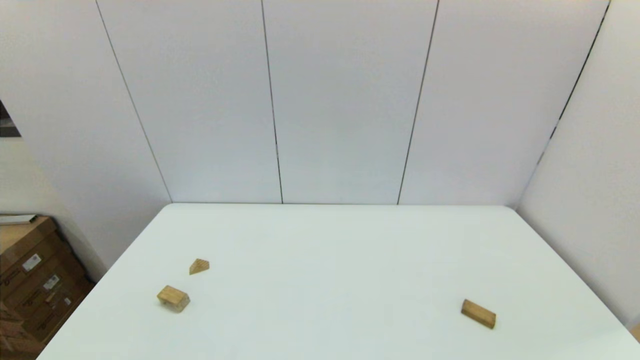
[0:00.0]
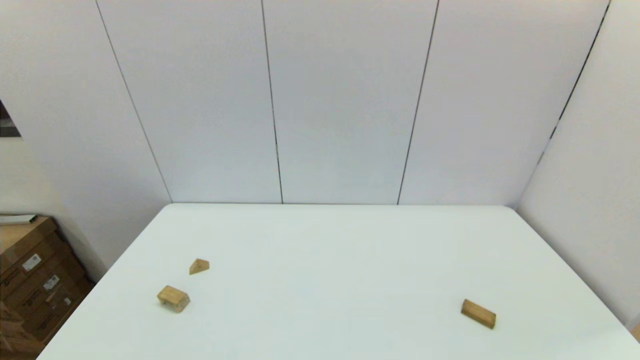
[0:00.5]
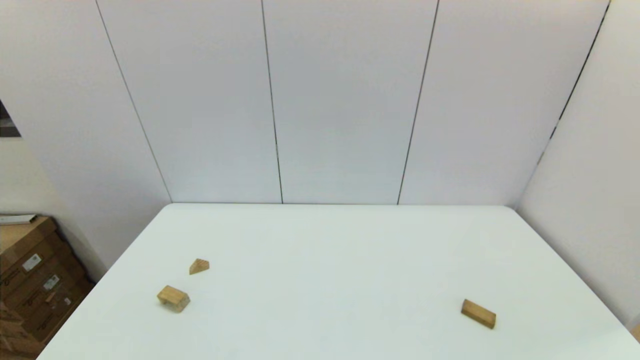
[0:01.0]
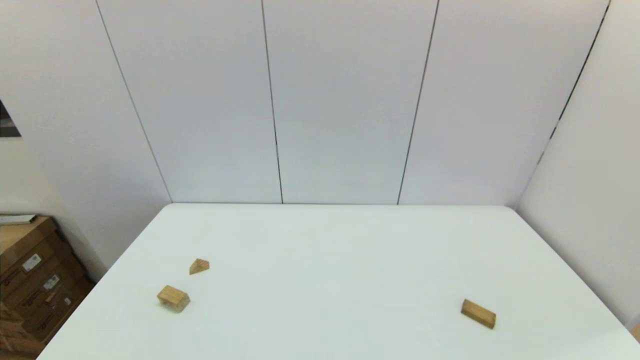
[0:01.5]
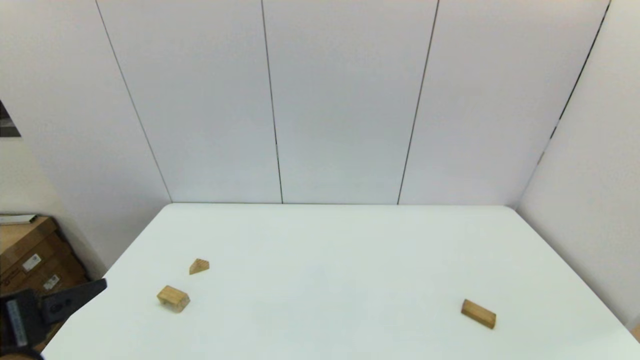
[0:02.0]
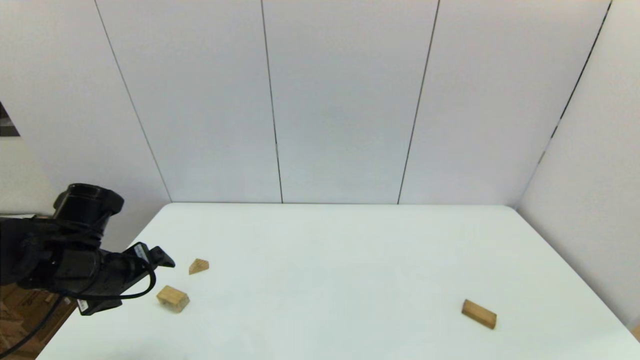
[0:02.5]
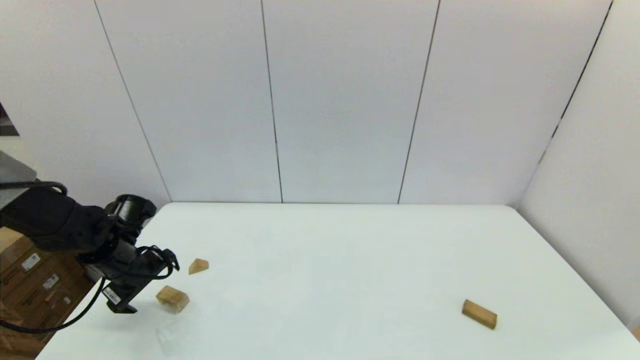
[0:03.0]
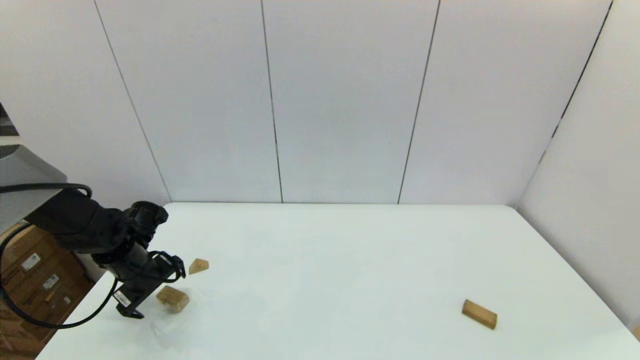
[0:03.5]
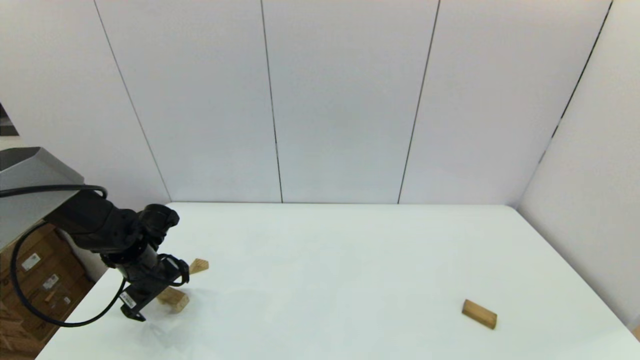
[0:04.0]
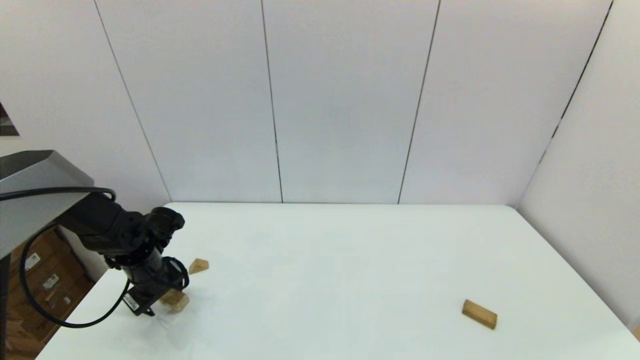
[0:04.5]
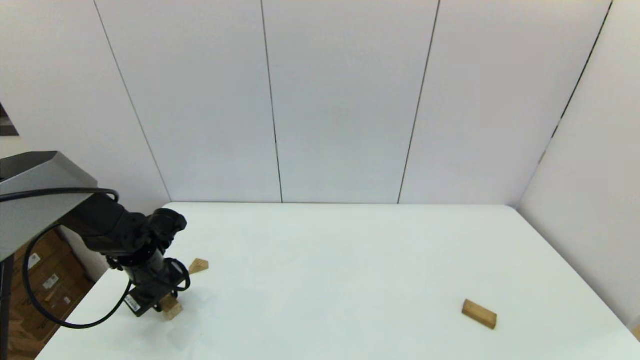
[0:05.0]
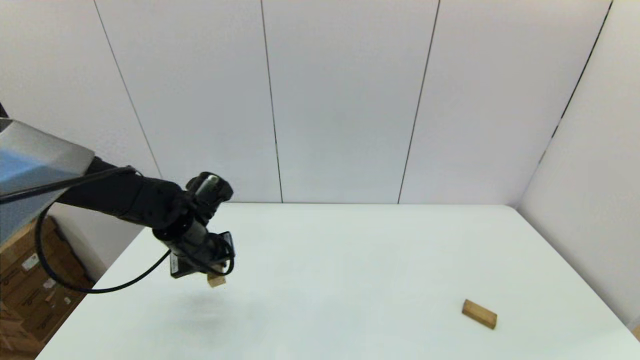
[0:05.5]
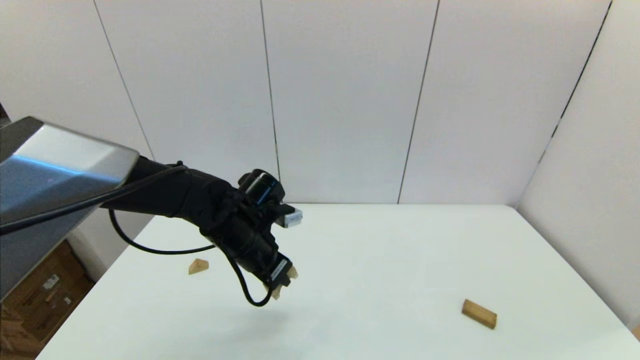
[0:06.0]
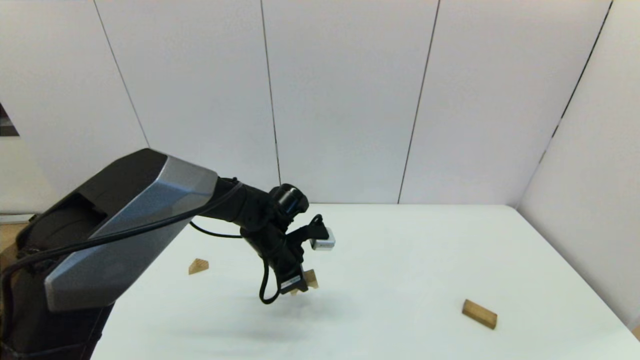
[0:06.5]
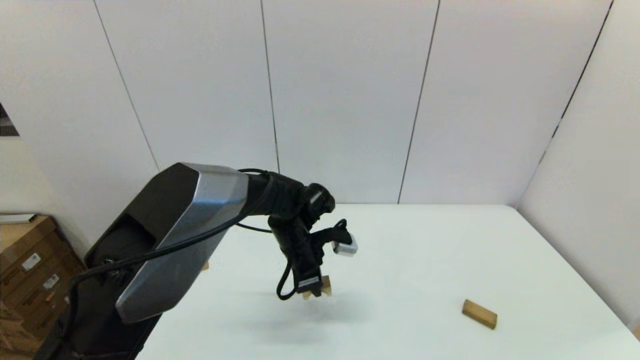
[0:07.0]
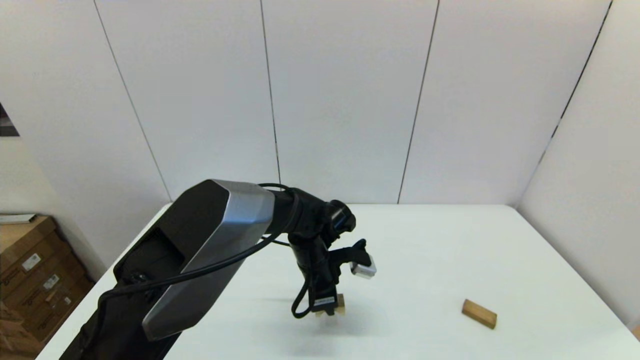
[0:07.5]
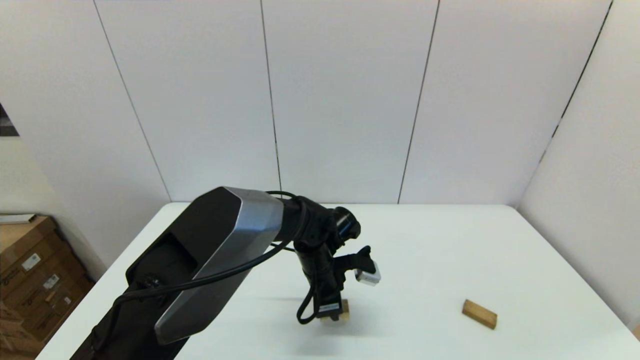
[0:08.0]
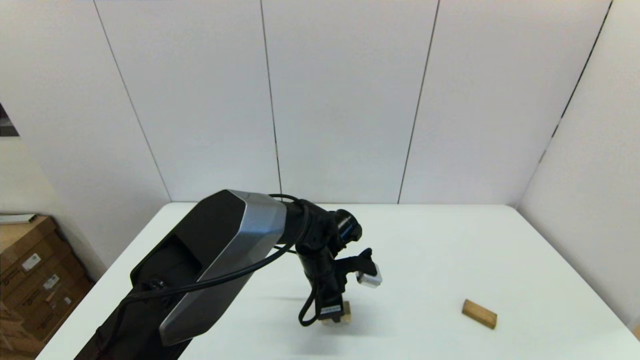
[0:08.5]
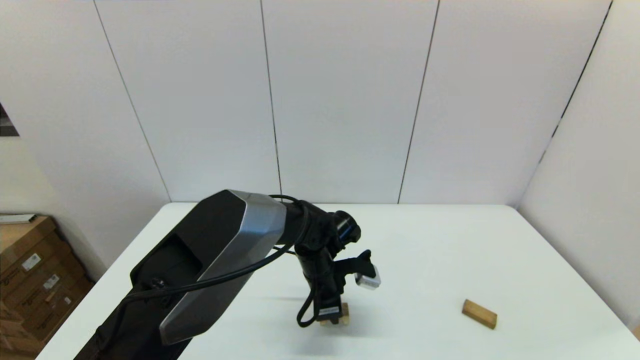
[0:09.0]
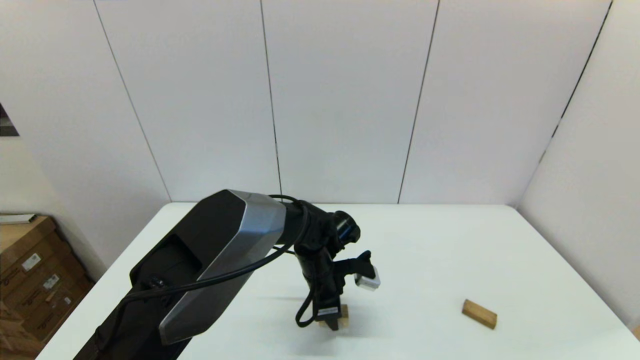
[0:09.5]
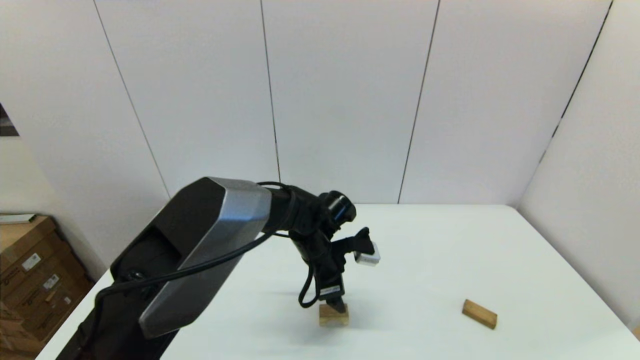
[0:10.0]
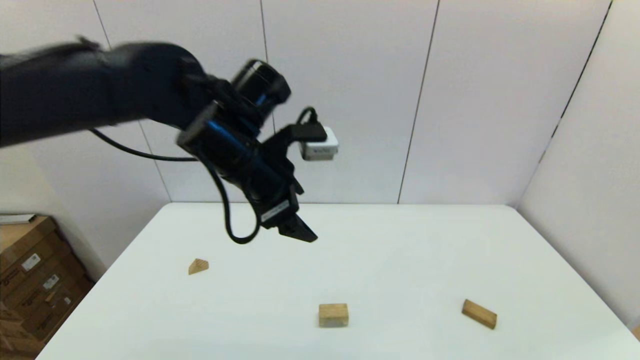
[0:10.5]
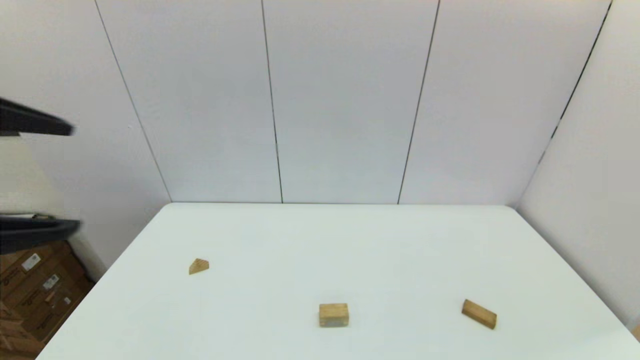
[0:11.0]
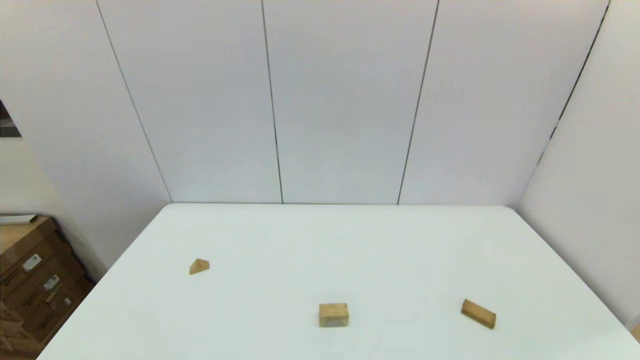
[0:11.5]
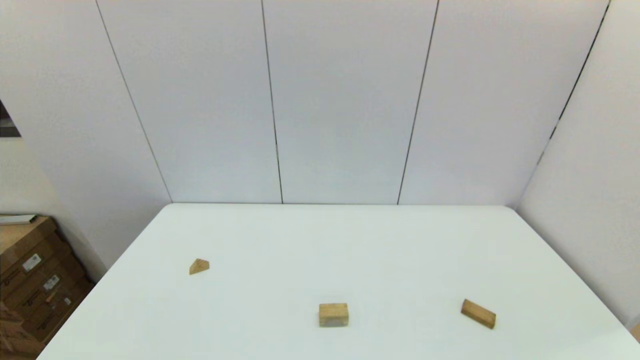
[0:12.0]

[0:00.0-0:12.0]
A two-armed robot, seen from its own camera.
Task of the whole recording: place the arched building blocks in the center of the table, set up the rectangular building blocks, and then set up the triangular building blocks.
Step, 0:02.0 to 0:04.5: Grasp the arch-shaped block with the left gripper.
Step, 0:05.0 to 0:09.5: Place the arch-shaped block in the center of view with the left gripper.
0:00.0 to 0:02.0: The left gripper heads forward and upward, covering roughly 15 cm.
0:02.0 to 0:04.0: The left gripper is displaced forward and downward by about 30 cm.
0:04.0 to 0:06.0: The left gripper travels to the right and upward by approximately 20 cm, and closes up.
0:06.0 to 0:08.0: The left gripper is displaced to the right and downward by some 15 cm.
0:08.0 to 0:10.0: The left gripper opens its fingers.
0:10.0 to 0:12.0: The left gripper goes roughly 50 cm backward and to the left.

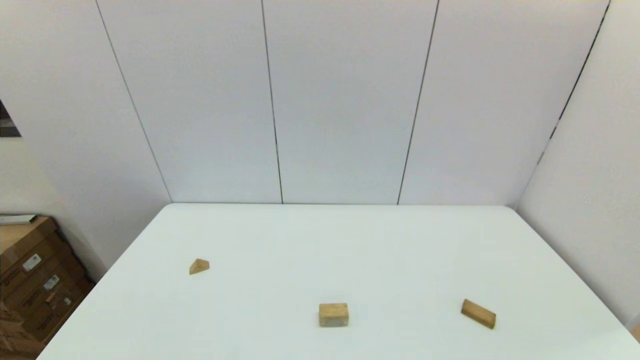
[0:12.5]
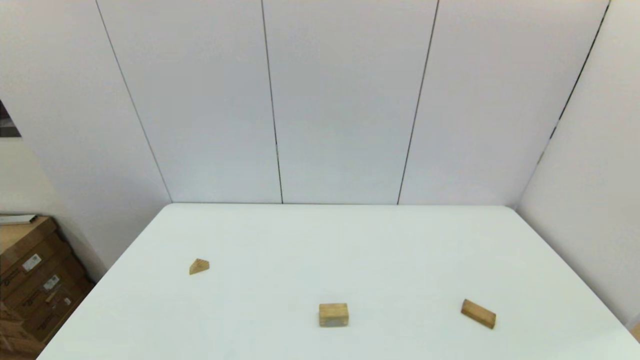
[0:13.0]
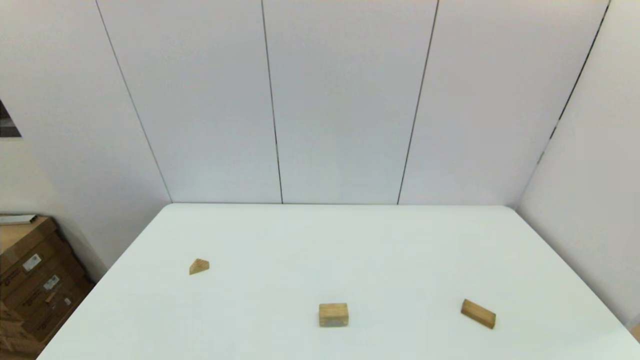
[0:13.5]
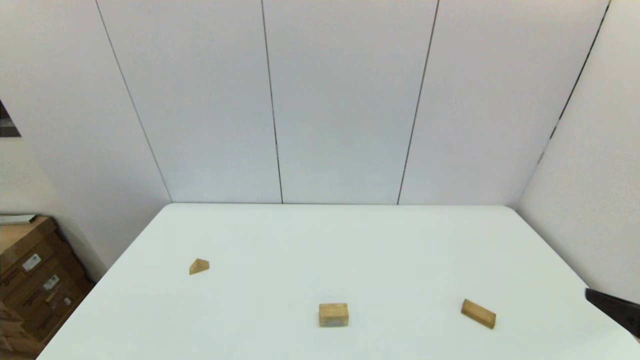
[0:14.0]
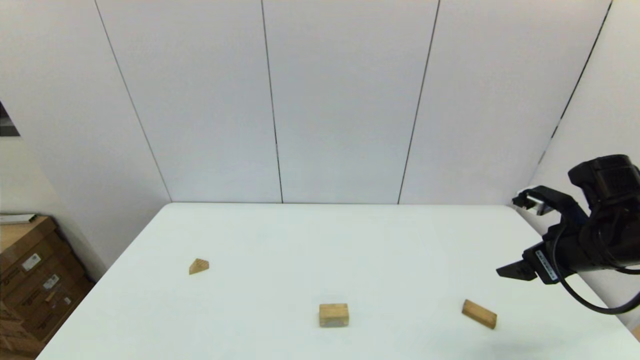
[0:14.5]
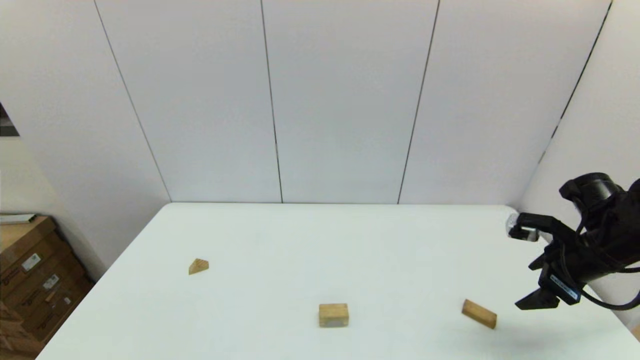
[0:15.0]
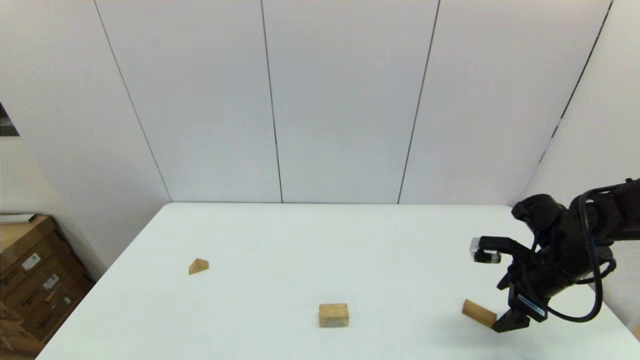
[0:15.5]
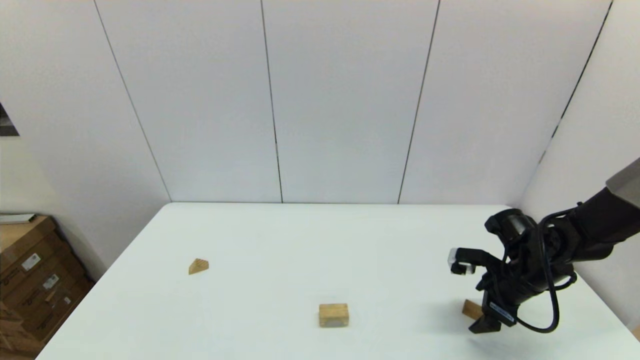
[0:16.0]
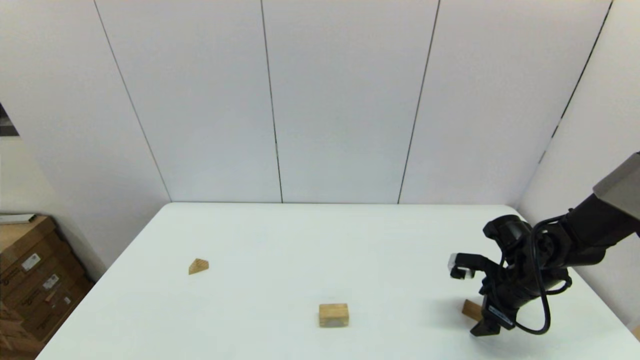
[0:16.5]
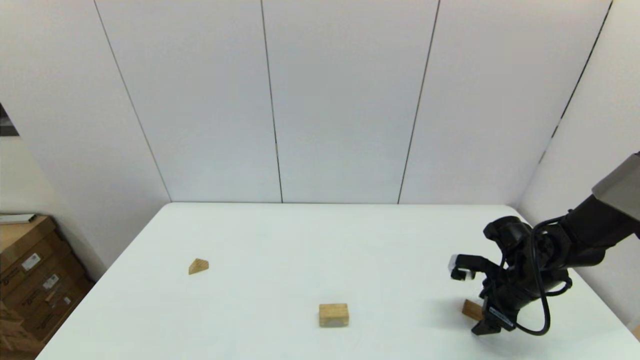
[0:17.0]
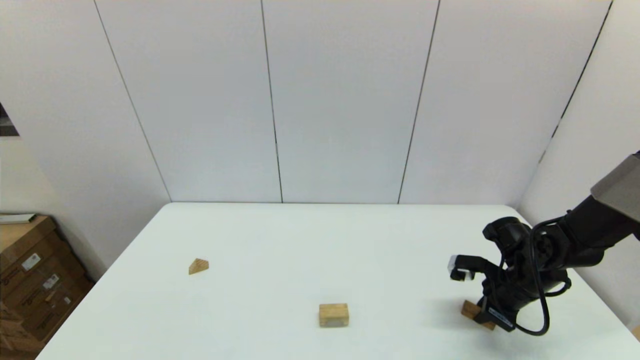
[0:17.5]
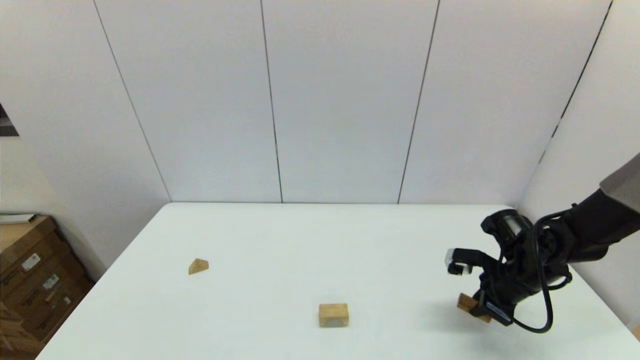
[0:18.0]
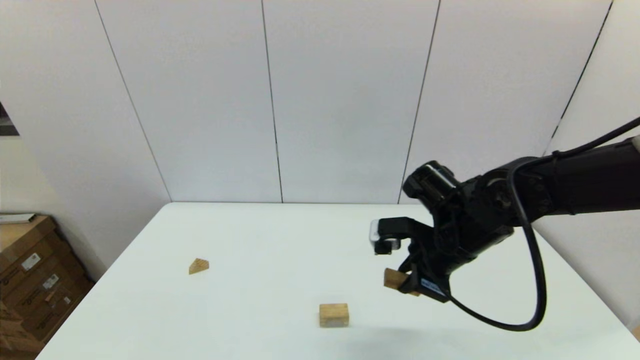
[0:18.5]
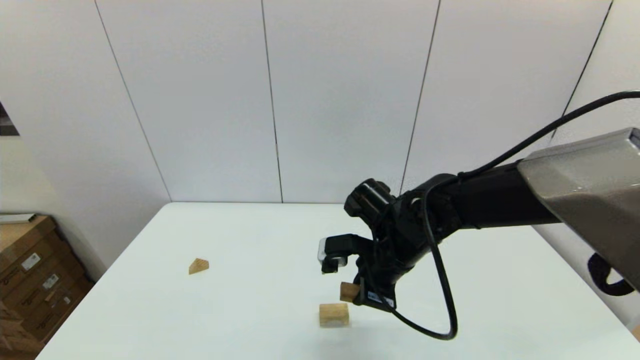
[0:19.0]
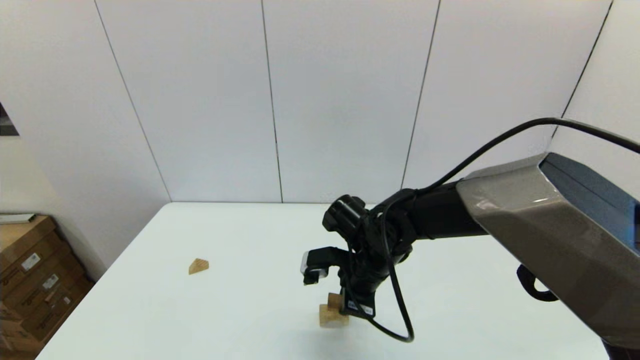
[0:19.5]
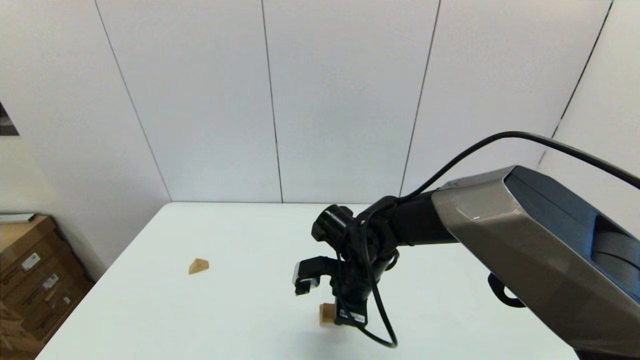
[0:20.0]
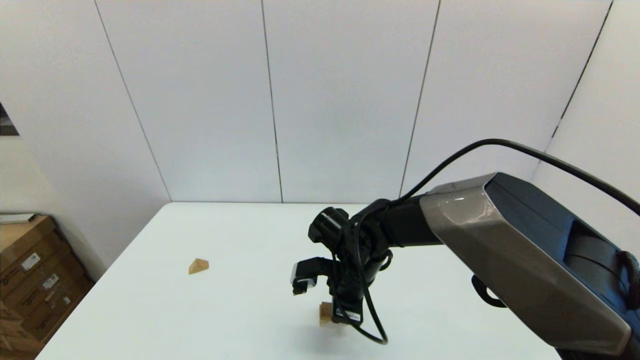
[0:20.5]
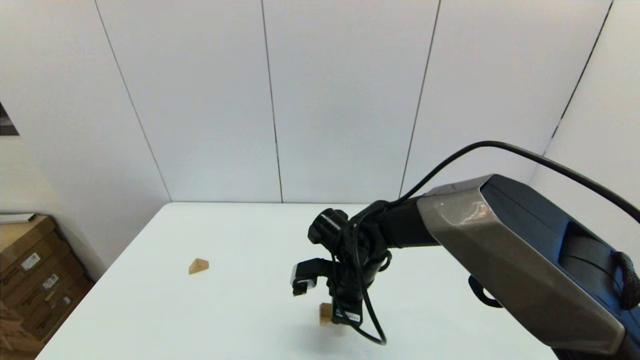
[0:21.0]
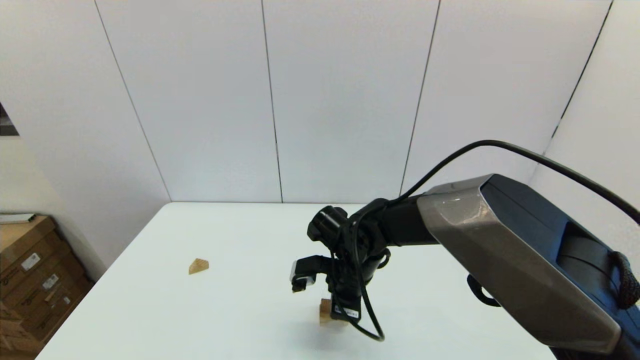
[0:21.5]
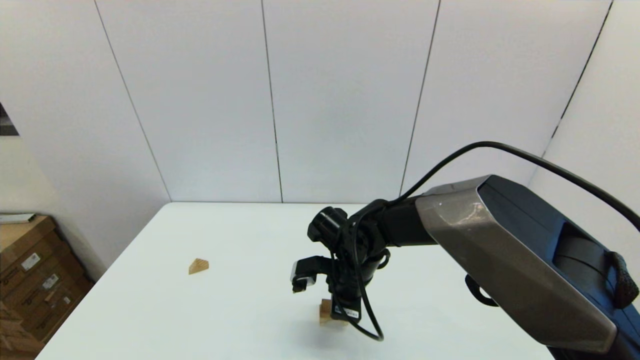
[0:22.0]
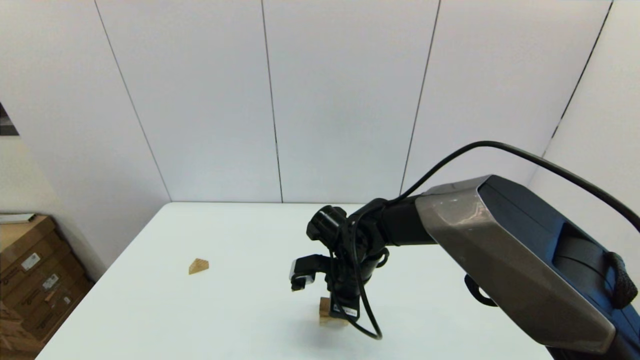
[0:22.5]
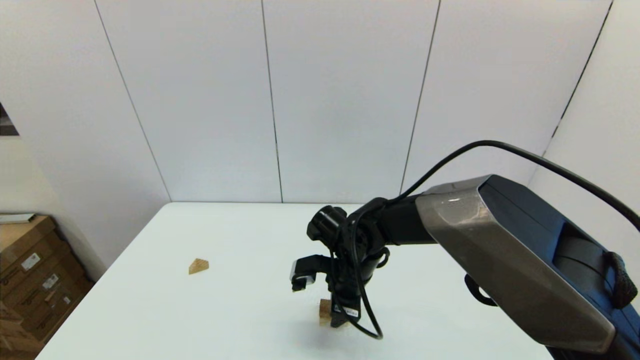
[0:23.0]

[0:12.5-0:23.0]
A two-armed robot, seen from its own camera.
Task of the whole recording: place the arched building blocks in the center of the table, set up the rectangular building blocks, and then set up the triangular building blocks.
Step, 0:12.5 to 0:17.0: Grasp the box-shaped block with the right gripper.
Step, 0:18.0 to 0:22.5: Place the box-shaped block onto the arch-shaped block with the right gripper.
0:12.5 to 0:14.5: The right gripper heads forward, covering about 30 cm.
0:14.5 to 0:16.5: The right gripper goes approximately 15 cm downward and forward.
0:16.5 to 0:19.0: The right gripper goes about 25 cm to the left and upward, and closes.
0:19.0 to 0:21.0: The right gripper travels downward and to the left by about 10 cm.
0:21.0 to 0:23.0: The right gripper opens.
